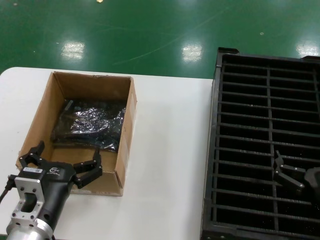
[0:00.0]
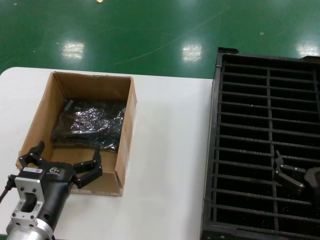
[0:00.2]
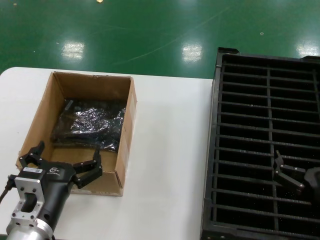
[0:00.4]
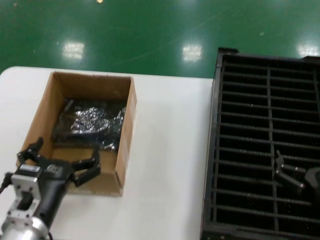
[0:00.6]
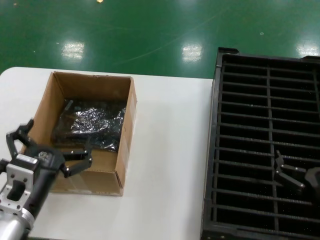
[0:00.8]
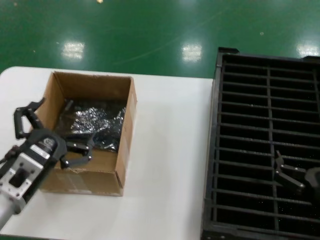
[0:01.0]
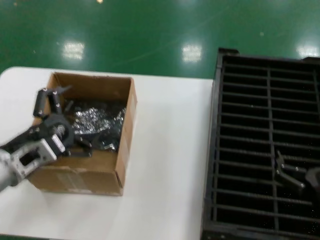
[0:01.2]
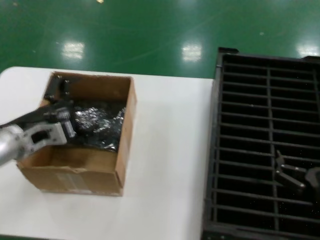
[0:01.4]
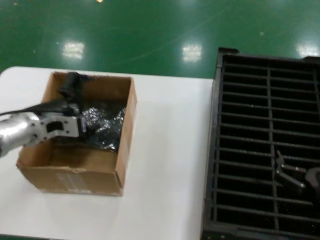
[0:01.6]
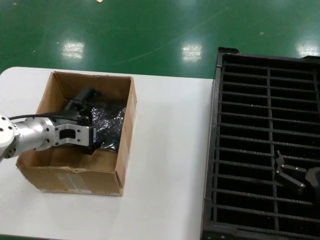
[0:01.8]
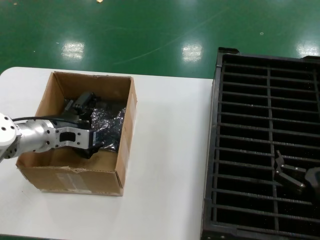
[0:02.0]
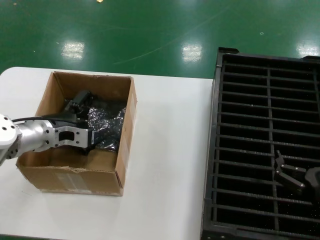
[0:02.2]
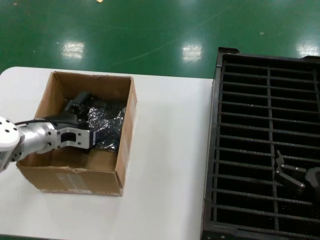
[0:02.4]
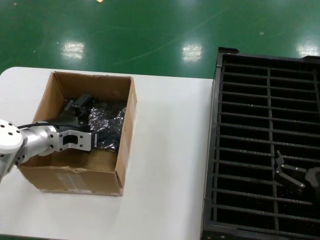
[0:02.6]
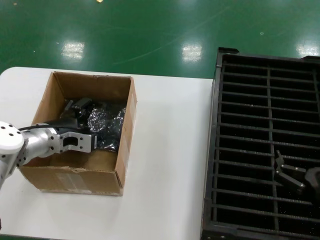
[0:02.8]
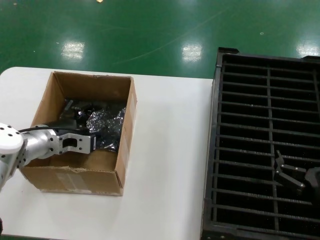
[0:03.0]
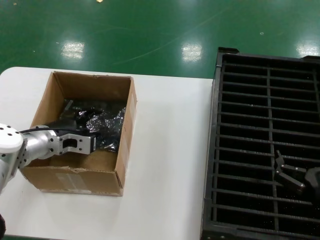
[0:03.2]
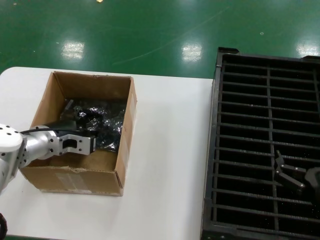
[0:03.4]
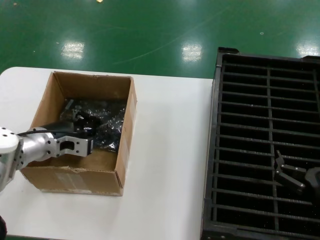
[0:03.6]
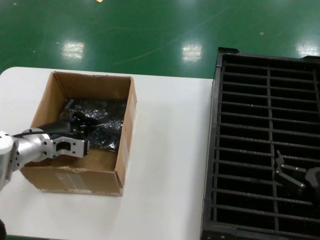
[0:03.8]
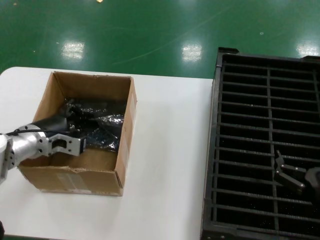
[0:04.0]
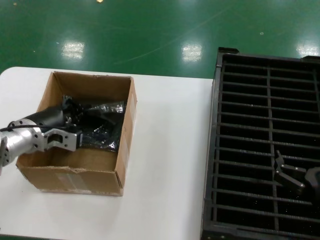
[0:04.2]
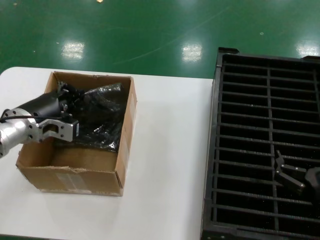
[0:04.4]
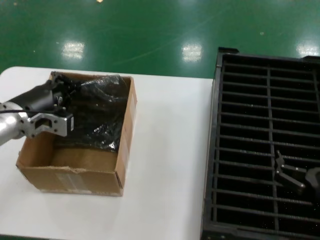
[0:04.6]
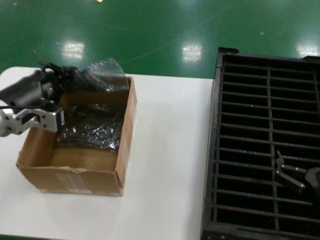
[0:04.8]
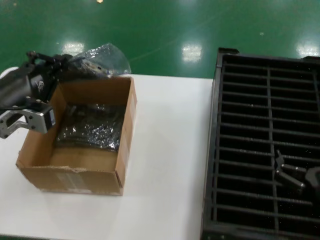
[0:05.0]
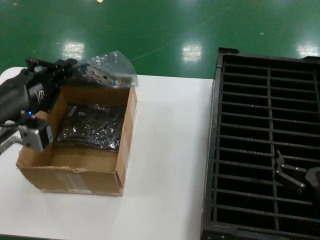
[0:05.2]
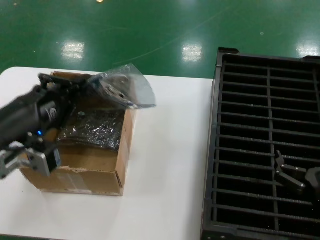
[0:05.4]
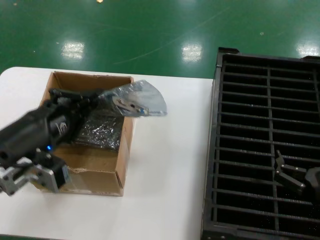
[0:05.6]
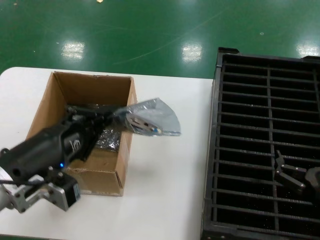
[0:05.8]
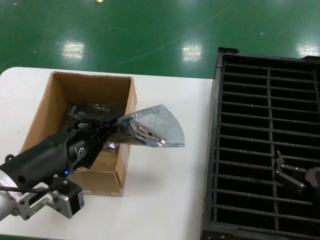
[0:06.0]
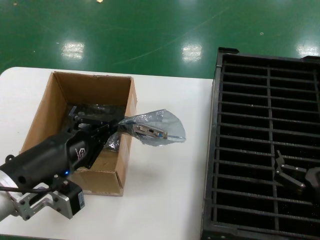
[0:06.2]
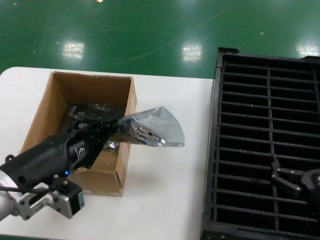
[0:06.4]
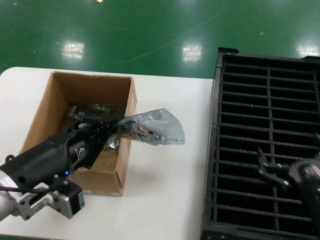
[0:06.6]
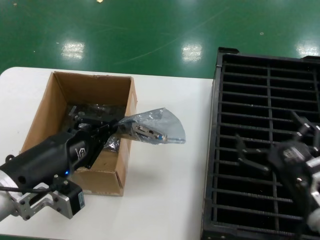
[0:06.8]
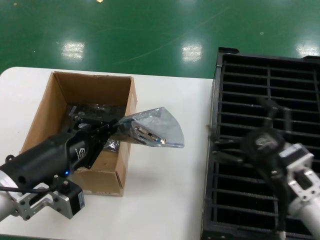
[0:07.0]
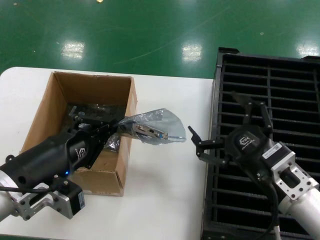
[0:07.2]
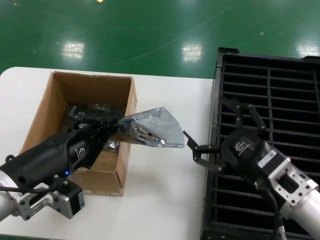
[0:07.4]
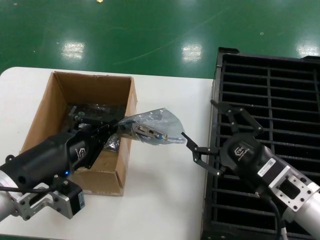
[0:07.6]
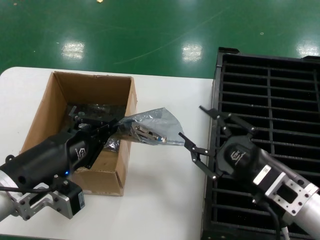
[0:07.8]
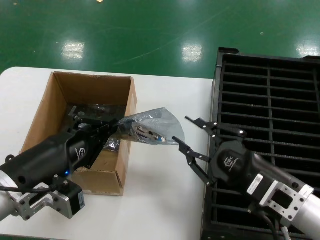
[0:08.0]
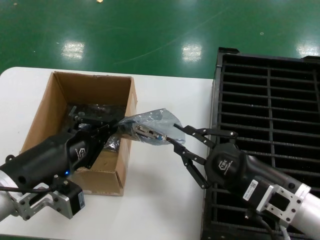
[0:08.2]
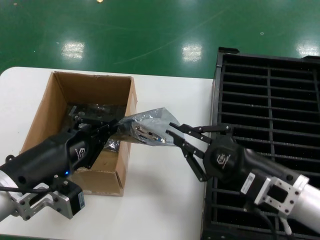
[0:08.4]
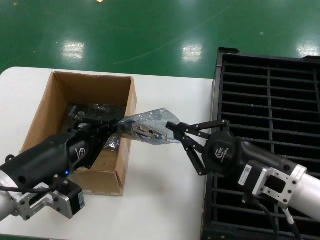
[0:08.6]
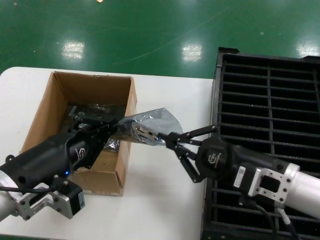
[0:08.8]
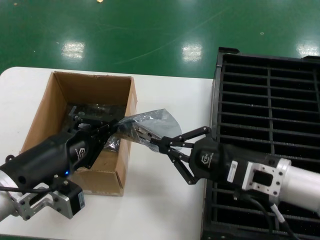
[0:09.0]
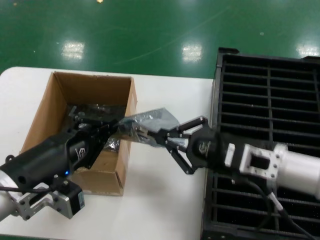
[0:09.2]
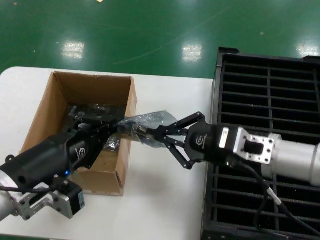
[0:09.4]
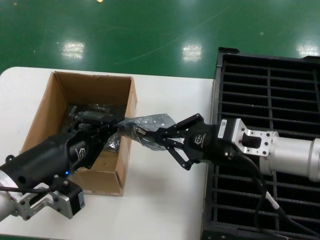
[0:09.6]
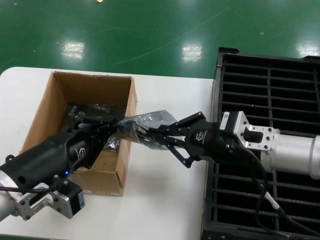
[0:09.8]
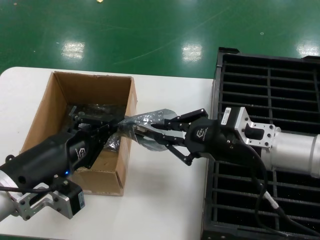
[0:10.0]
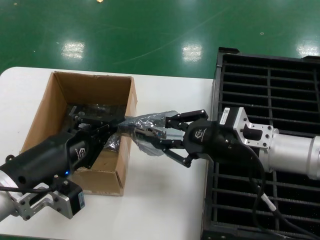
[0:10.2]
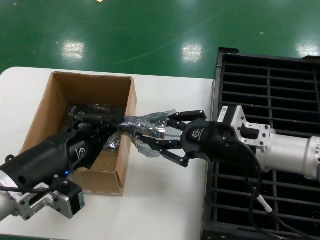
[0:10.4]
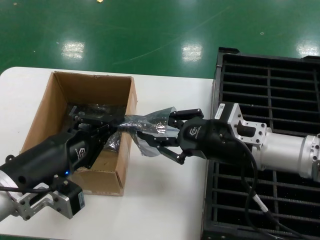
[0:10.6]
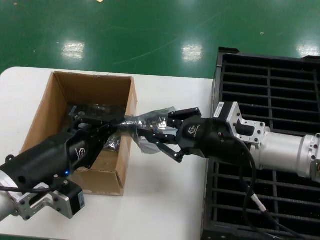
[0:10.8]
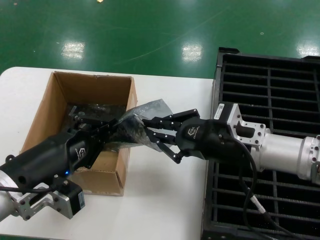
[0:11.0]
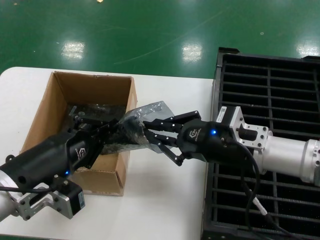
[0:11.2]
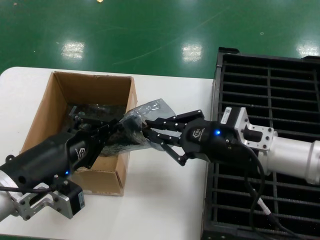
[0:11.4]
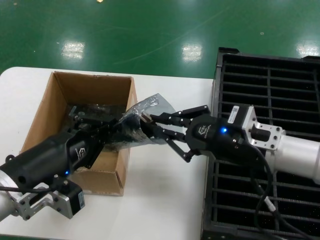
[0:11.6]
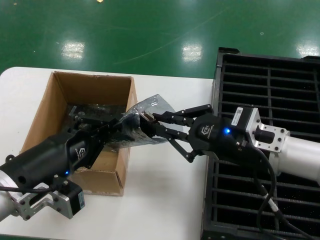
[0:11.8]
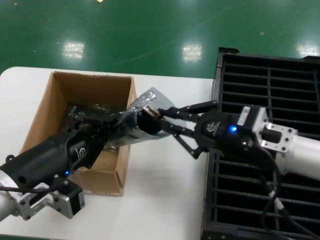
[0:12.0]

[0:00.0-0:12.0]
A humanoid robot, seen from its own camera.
Task of the whole recording: take out graphics card from box remove packaging put into black container.
Step, 0:00.0 to 0:03.6: Grasp the bag.
Step, 0:03.8 to 0:06.4: Lift the bag.
0:00.0 to 0:01.6: The left hand heads forward, upward and to the left, covering some 20 cm.
0:01.6 to 0:03.0: The left hand moves about 5 cm.
0:03.0 to 0:04.4: The hands stay close to where they were, moving slightly.
0:04.4 to 0:06.0: The left hand moves backward, some 20 cm.
0:06.0 to 0:07.6: The right hand travels to the left and upward by about 10 cm.
0:07.6 to 0:09.0: The right hand shifts by about 5 cm.
0:09.0 to 0:10.4: The right hand is displaced forward by some 5 cm.
0:10.4 to 0:12.0: The hands stay close to where they were, moving slightly.

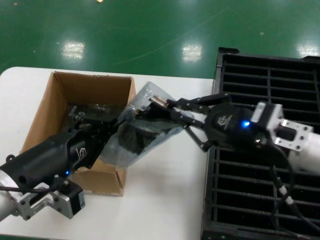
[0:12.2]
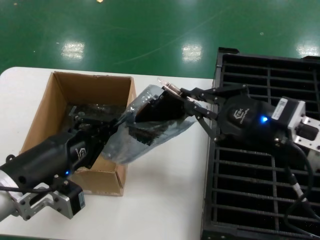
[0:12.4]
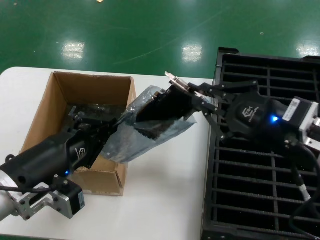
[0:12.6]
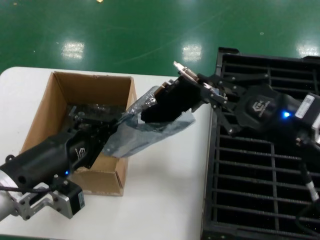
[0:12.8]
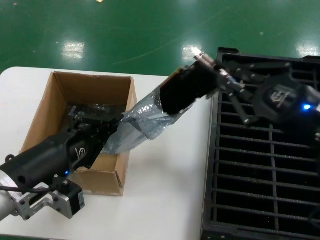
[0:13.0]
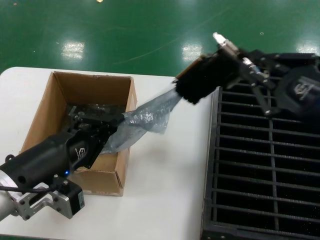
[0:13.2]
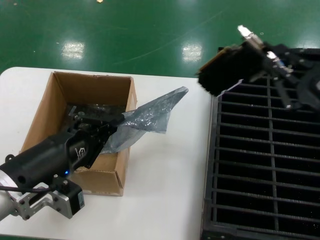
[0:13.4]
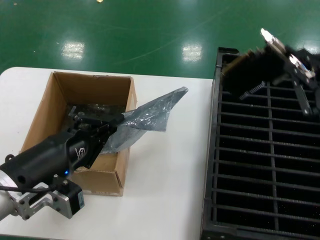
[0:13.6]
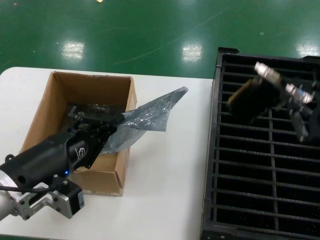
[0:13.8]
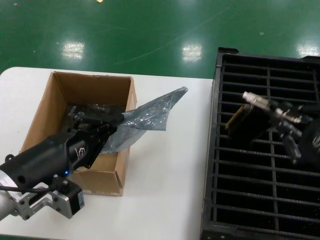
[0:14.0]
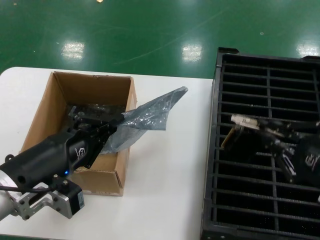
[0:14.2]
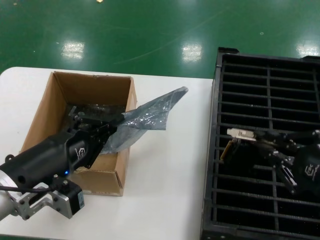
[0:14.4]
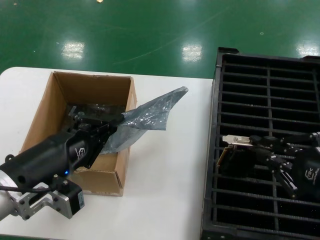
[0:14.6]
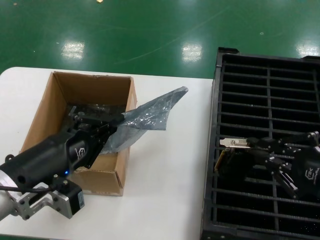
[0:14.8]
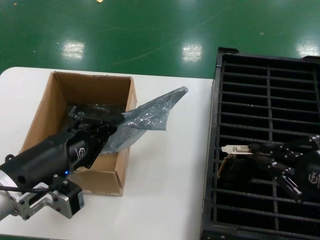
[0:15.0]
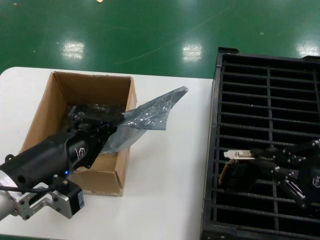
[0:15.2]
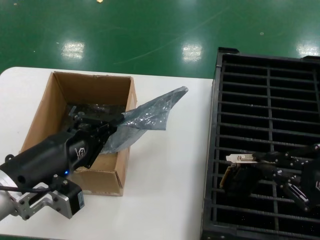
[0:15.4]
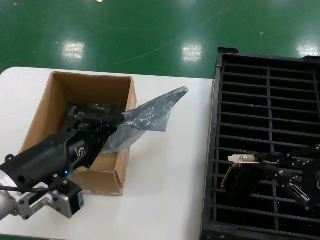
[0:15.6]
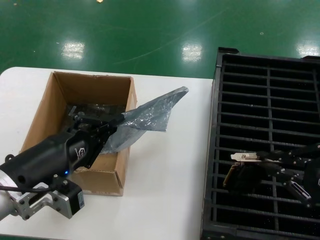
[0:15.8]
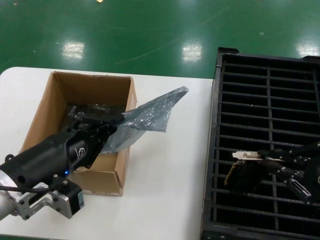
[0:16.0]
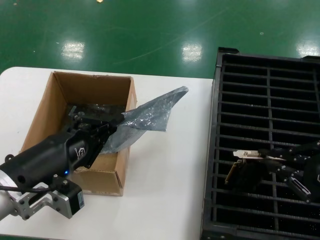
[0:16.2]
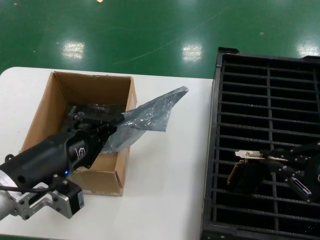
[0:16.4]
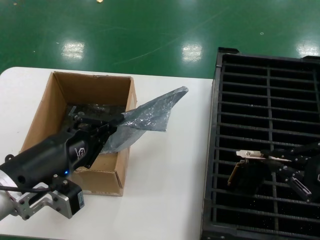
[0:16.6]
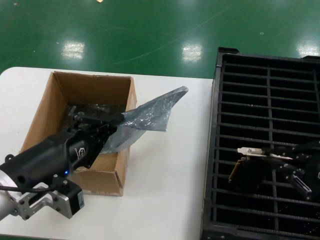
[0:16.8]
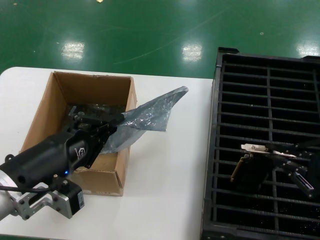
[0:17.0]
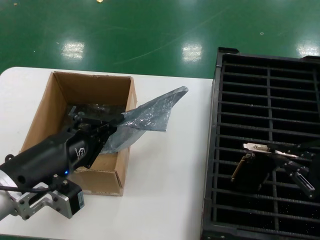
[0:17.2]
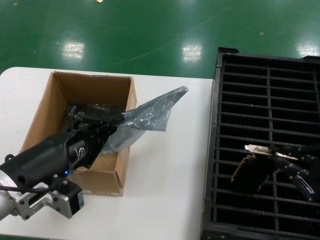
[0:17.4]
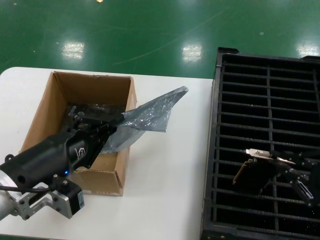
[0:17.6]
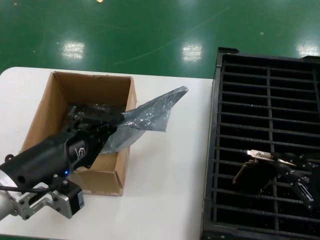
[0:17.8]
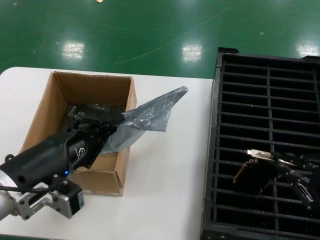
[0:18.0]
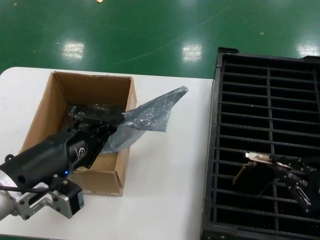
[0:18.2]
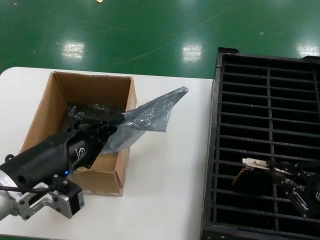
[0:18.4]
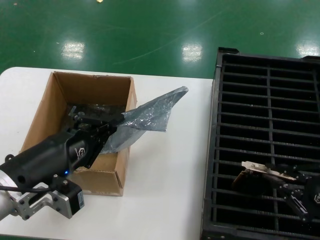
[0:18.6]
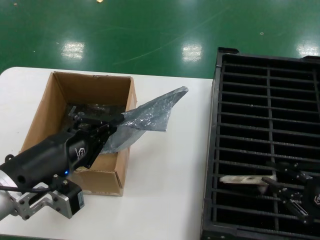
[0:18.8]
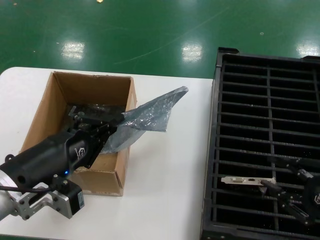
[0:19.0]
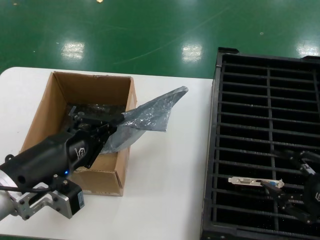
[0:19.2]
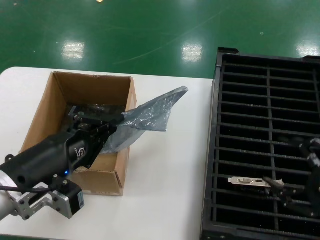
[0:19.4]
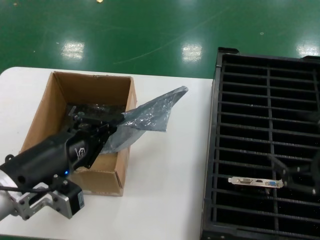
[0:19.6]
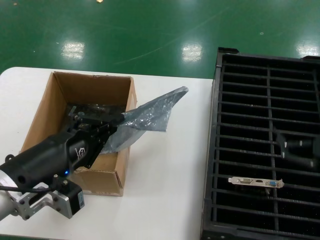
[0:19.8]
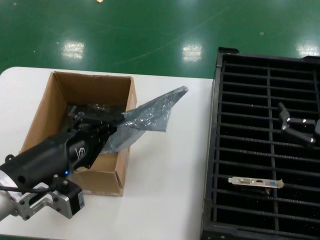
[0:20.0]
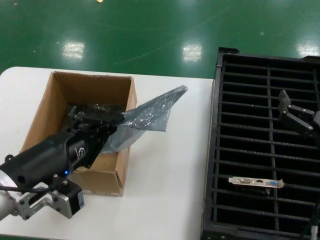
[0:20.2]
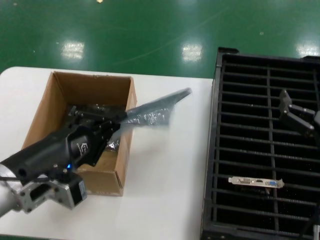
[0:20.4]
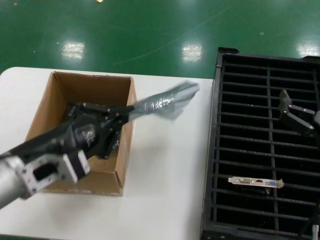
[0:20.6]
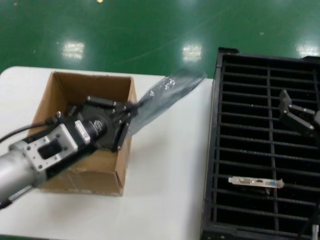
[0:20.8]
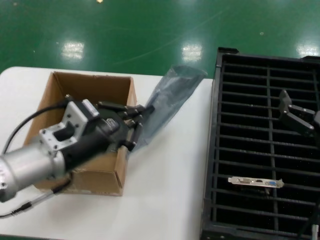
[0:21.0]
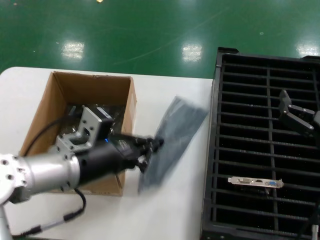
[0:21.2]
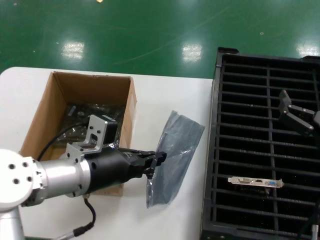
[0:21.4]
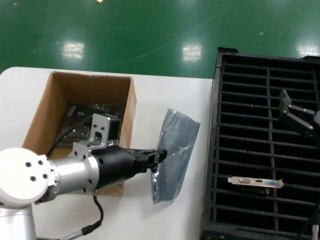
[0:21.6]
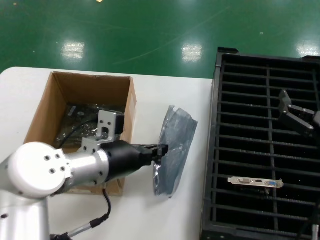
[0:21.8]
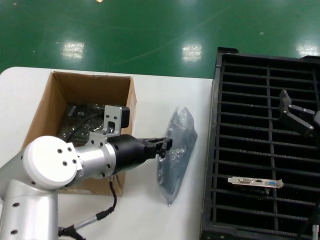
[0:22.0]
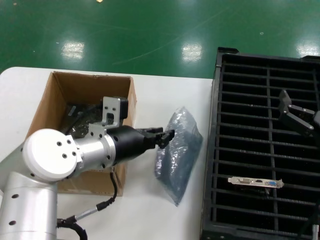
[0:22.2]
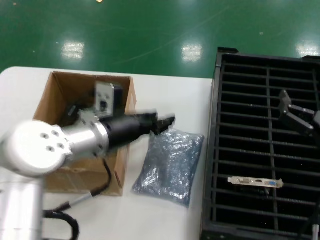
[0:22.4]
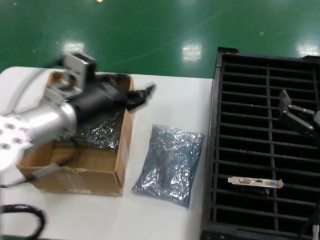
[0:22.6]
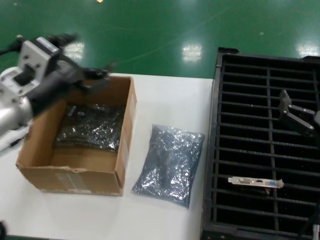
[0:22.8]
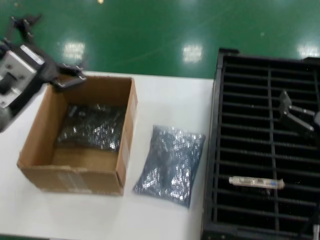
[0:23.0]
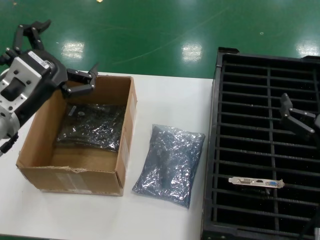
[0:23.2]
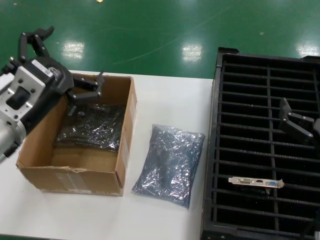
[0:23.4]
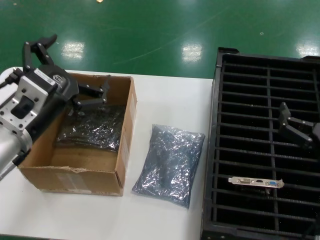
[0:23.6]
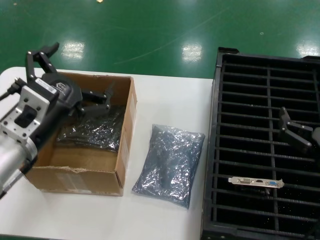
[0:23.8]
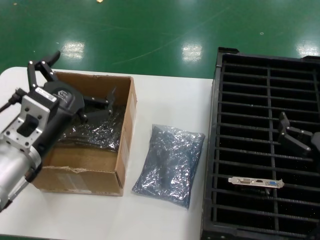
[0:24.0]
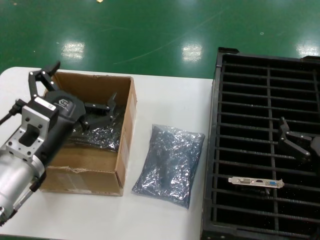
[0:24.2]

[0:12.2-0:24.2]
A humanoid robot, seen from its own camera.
Task of the whole recording: take out graphics card from box remove packaging put into black container.
Step, 0:13.6 to 0:19.2: Place the hard disk in the hard disk enclosure.
Step, 0:19.4 to 0:22.6: Place the down the bag.
0:12.2 to 0:13.8: The right hand shifts some 15 cm to the right and backward.
0:15.2 to 0:16.6: The right hand changes place by some 5 cm.
0:16.6 to 0:18.2: The hands stay close to where they were, moving slightly.
0:19.8 to 0:21.2: The right hand changes place by some 5 cm. Meanwhile the left hand is displaced forward by about 5 cm.
0:22.6 to 0:24.2: The left hand travels backward and downward by roughly 10 cm.
